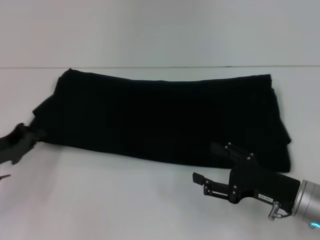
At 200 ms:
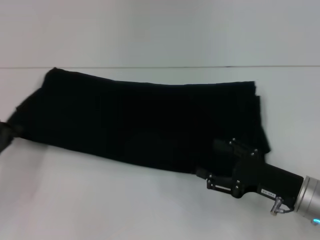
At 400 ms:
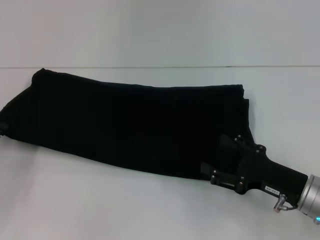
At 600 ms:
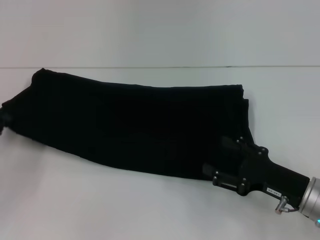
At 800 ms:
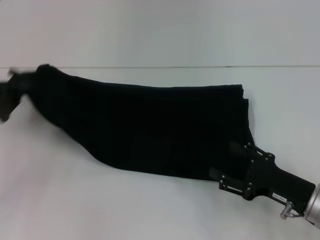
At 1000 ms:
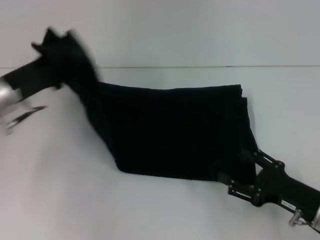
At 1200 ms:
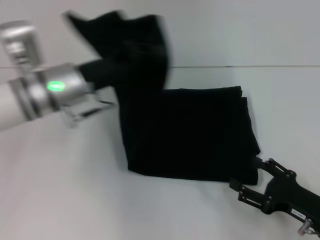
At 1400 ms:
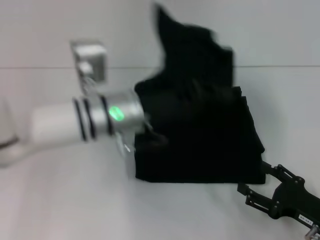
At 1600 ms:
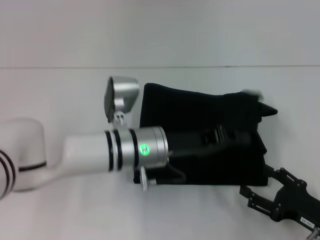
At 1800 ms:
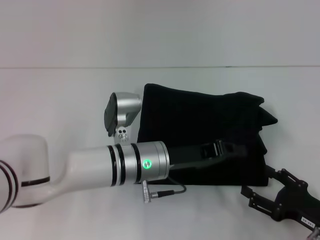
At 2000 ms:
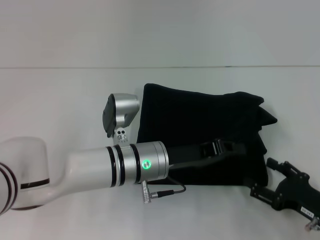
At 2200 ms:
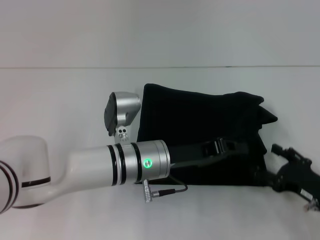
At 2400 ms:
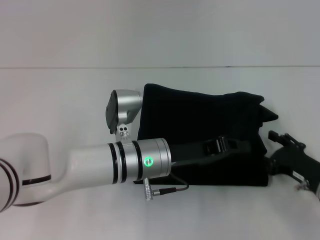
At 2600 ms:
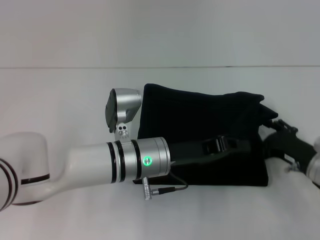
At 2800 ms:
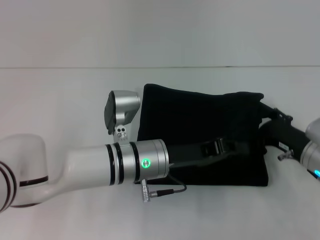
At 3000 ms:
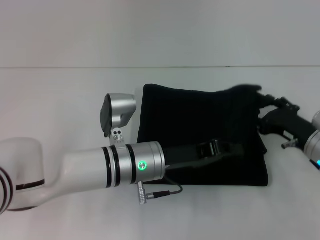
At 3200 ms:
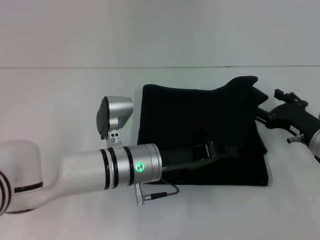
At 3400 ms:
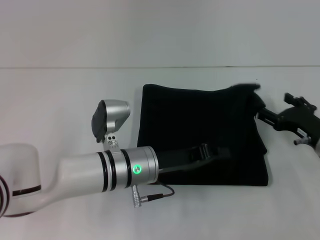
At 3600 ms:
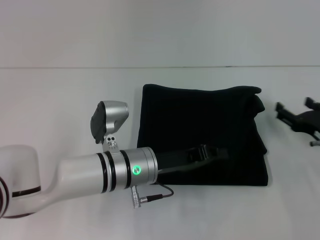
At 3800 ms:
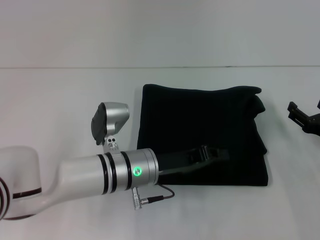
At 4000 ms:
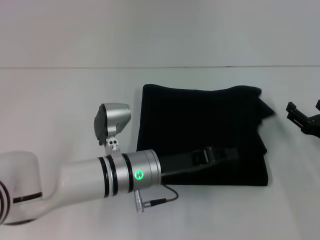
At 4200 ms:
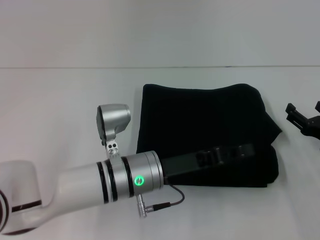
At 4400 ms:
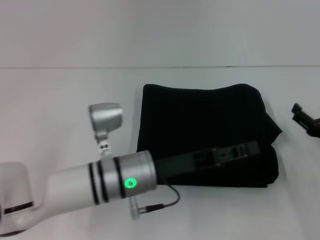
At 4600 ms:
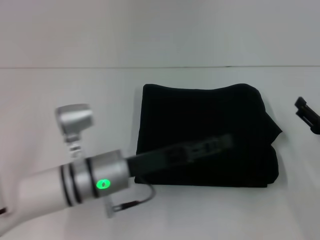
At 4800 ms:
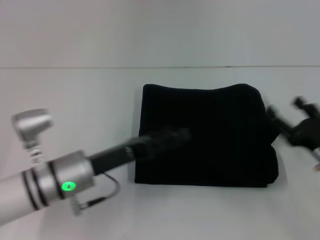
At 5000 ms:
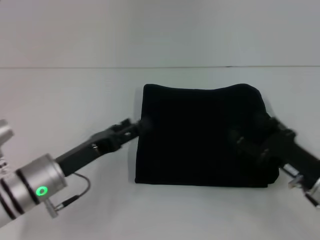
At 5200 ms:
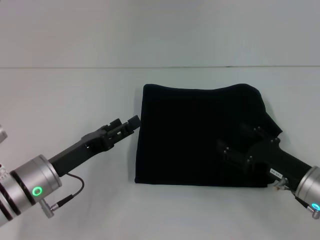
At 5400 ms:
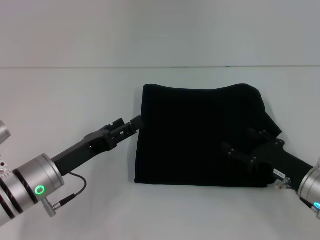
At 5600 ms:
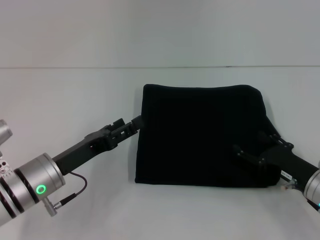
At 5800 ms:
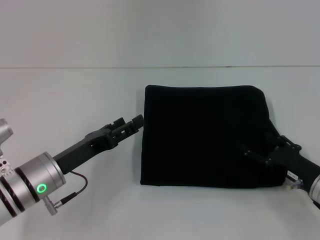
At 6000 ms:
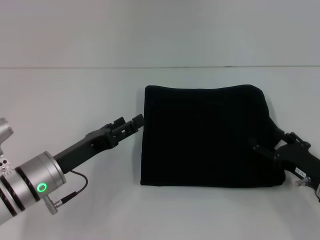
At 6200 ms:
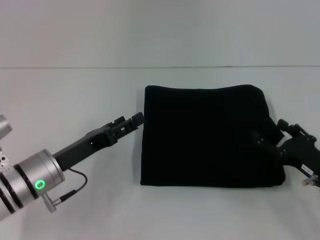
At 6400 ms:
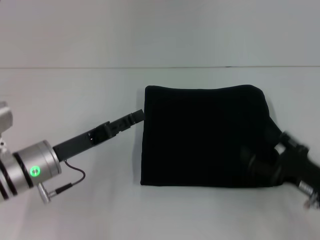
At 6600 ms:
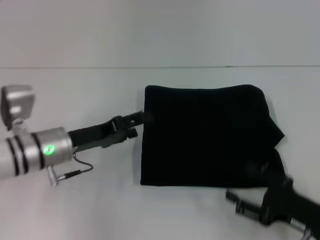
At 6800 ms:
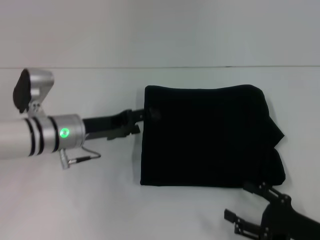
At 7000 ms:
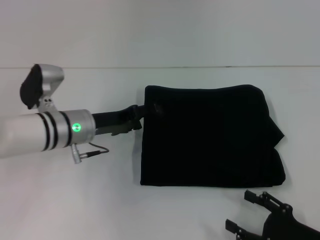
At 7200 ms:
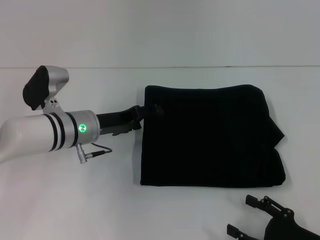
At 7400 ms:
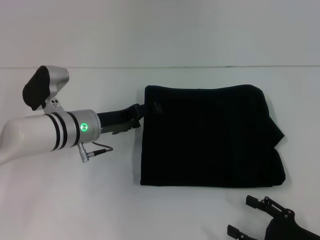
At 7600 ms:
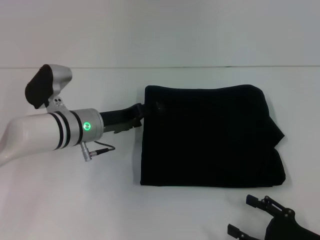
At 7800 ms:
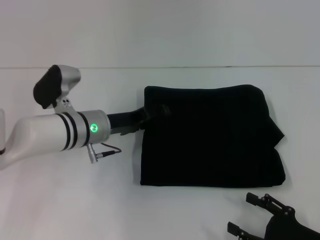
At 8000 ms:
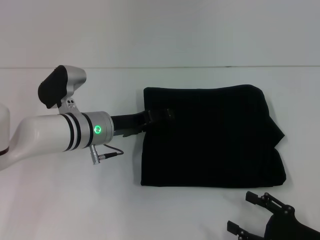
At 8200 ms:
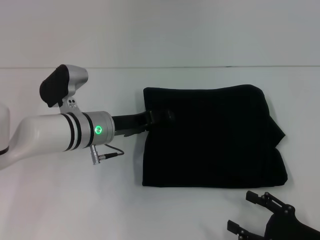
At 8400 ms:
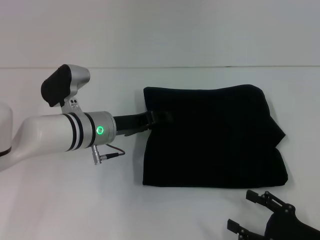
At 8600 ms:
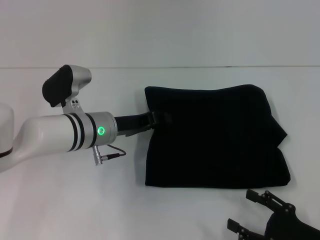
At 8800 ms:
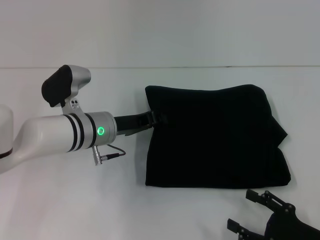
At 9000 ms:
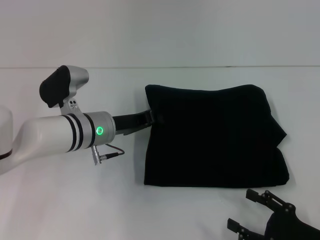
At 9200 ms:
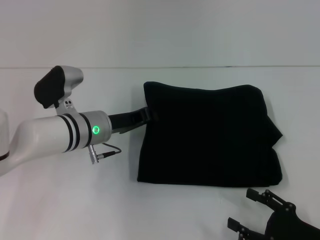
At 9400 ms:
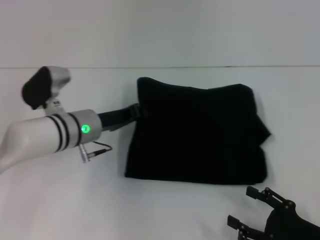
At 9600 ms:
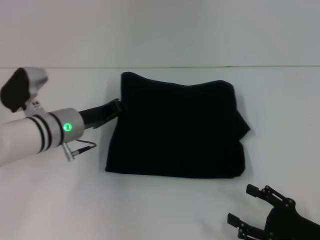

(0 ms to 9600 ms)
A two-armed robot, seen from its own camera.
Step, 0 ms - 7200 ms: Fold the clothes with your left hand.
0 ms - 1600 ms: The left gripper moves to the right, approximately 25 cm, while the right gripper moves to the right, about 5 cm.
1600 ms - 3200 ms: The right gripper heads forward, covering about 15 cm.
3200 ms - 4800 ms: The left gripper goes about 10 cm to the left, and opens up. The right gripper heads backward, covering approximately 5 cm.
4800 ms - 6400 ms: The left gripper ends up about 5 cm from where it was.
6400 ms - 8000 ms: The right gripper is displaced backward by some 5 cm; the left gripper travels forward and to the right by roughly 10 cm.
8000 ms - 9600 ms: The left gripper closes.

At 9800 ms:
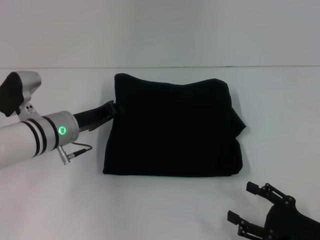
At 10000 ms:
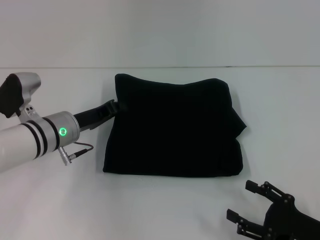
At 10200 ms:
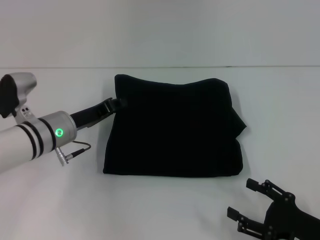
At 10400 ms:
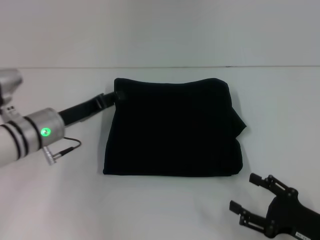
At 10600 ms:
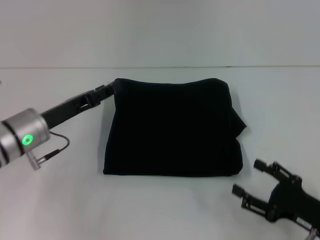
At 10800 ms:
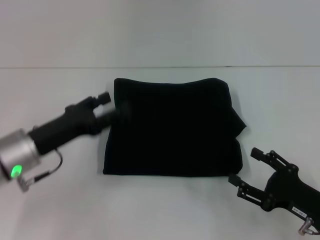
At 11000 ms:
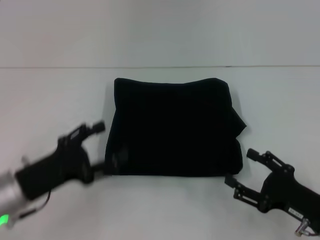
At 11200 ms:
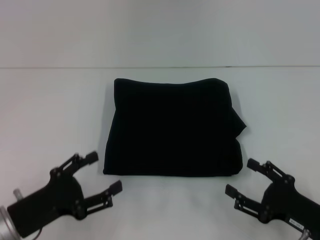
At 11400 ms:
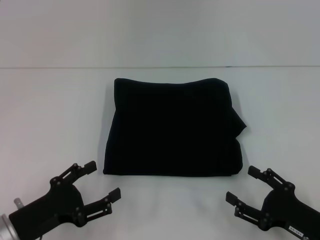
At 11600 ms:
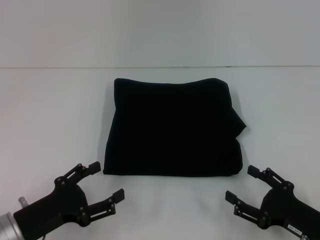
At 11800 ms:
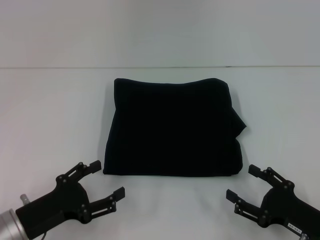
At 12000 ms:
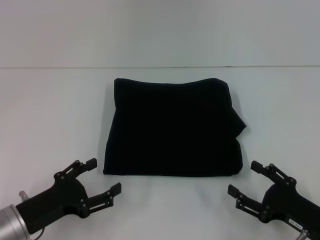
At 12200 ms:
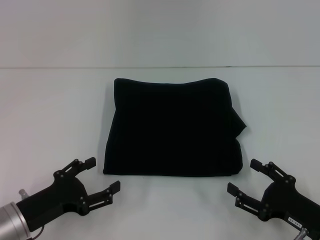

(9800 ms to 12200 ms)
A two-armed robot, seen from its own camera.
9800 ms - 11000 ms: The left gripper moves backward, some 15 cm, and opens up.
11000 ms - 12200 ms: The grippers move only a little.

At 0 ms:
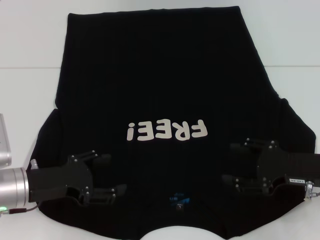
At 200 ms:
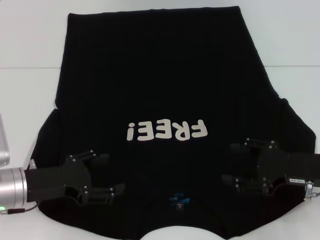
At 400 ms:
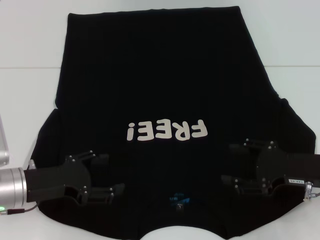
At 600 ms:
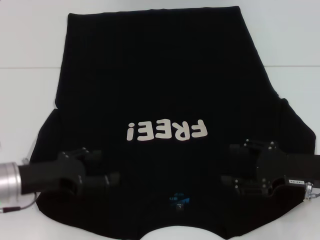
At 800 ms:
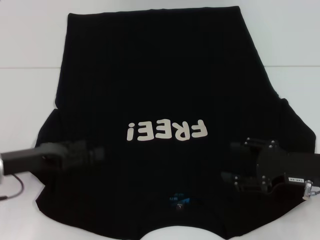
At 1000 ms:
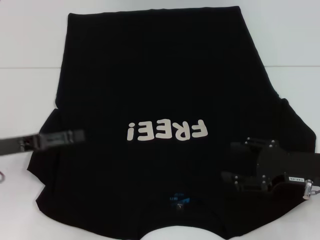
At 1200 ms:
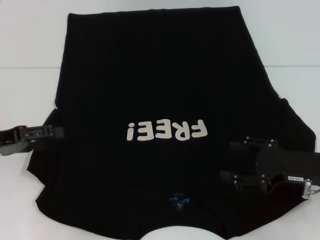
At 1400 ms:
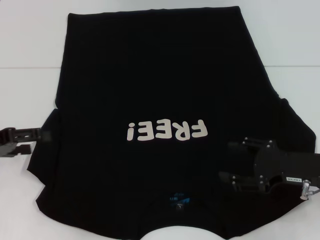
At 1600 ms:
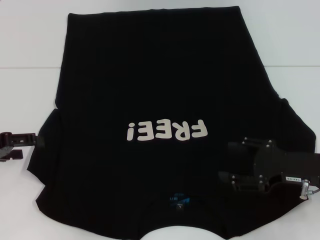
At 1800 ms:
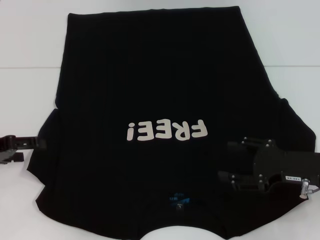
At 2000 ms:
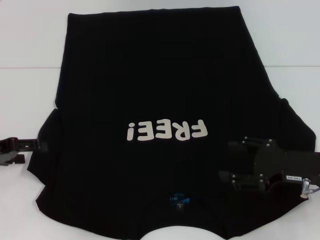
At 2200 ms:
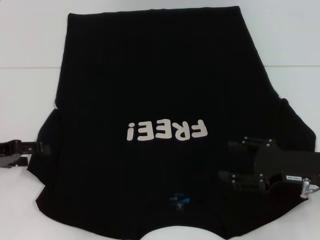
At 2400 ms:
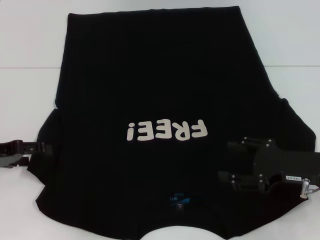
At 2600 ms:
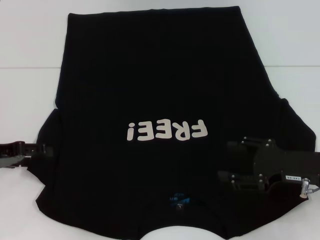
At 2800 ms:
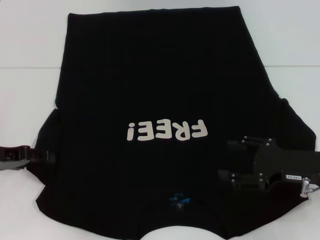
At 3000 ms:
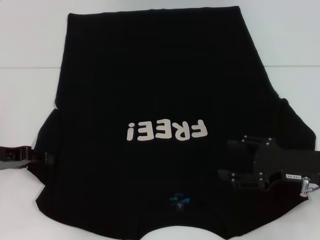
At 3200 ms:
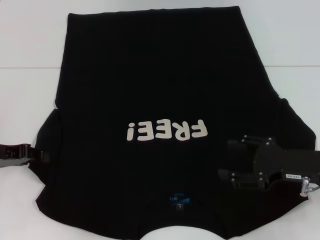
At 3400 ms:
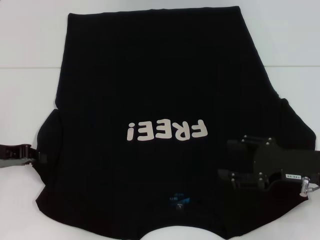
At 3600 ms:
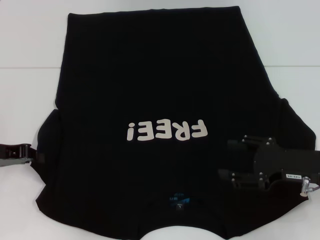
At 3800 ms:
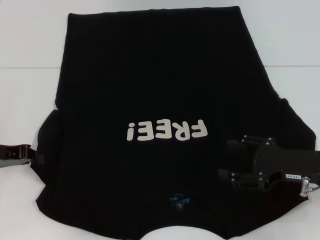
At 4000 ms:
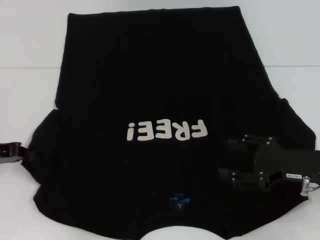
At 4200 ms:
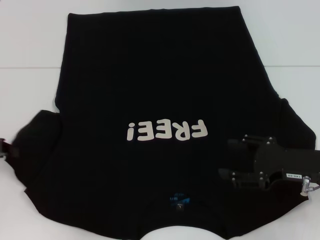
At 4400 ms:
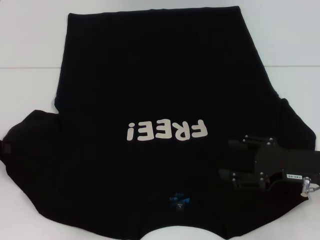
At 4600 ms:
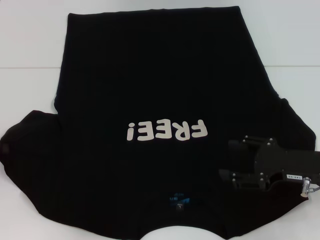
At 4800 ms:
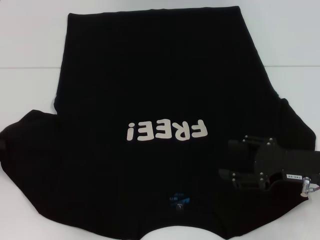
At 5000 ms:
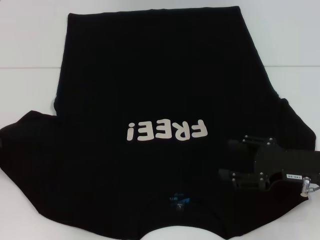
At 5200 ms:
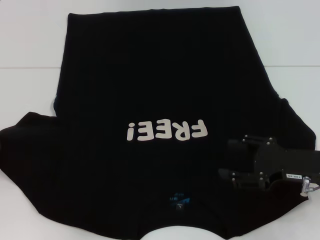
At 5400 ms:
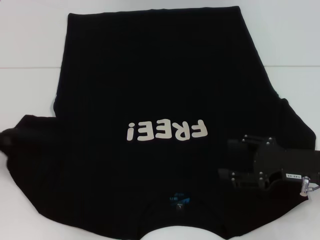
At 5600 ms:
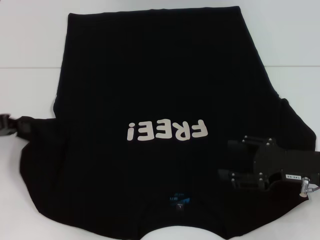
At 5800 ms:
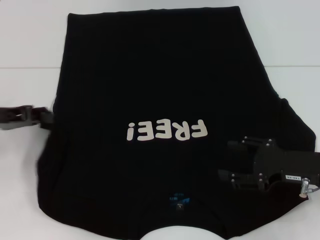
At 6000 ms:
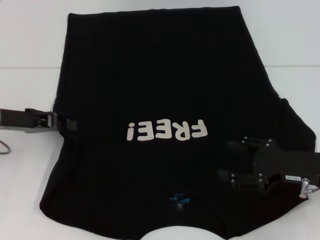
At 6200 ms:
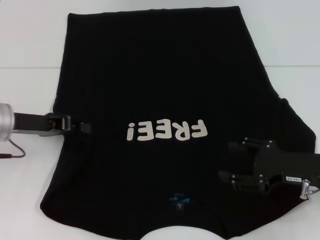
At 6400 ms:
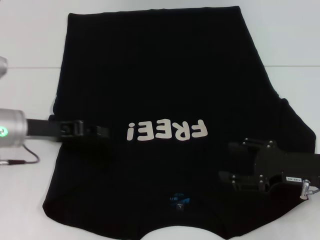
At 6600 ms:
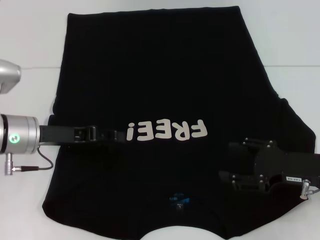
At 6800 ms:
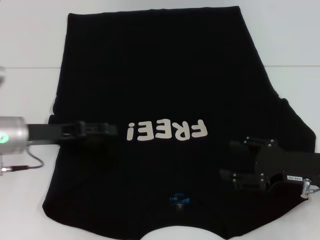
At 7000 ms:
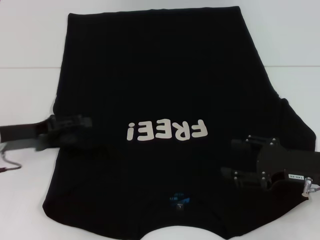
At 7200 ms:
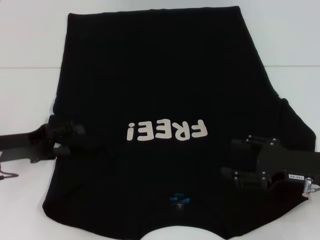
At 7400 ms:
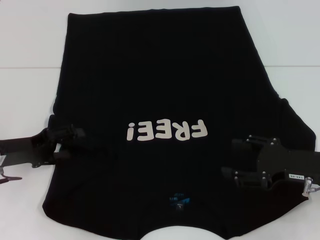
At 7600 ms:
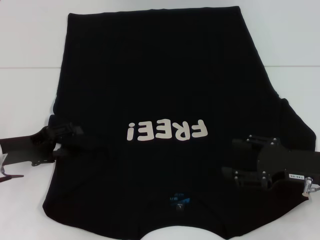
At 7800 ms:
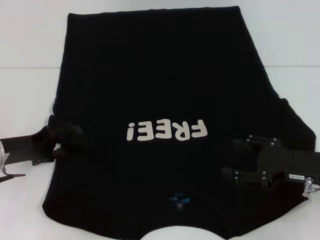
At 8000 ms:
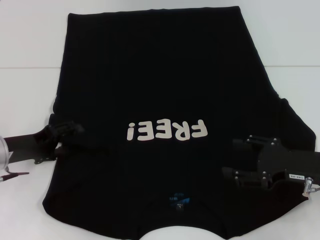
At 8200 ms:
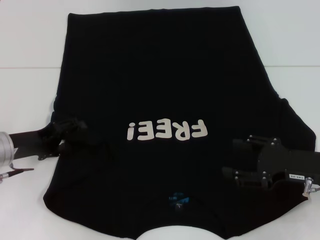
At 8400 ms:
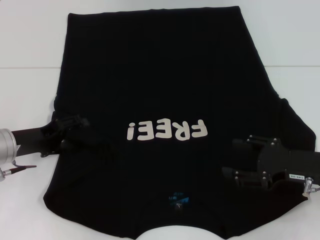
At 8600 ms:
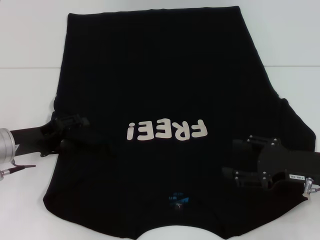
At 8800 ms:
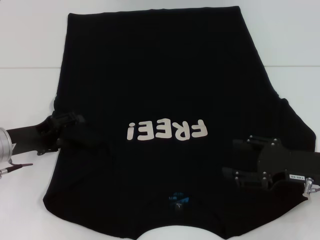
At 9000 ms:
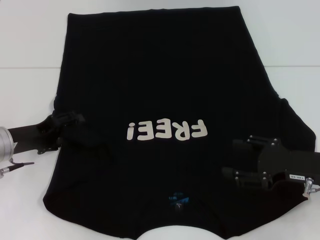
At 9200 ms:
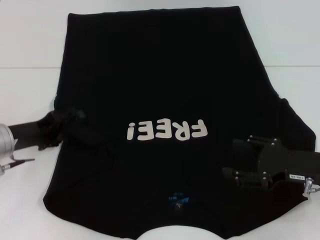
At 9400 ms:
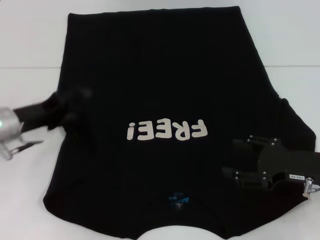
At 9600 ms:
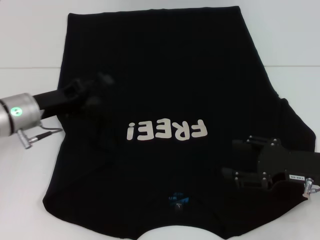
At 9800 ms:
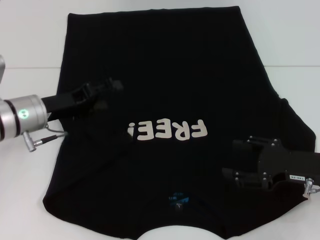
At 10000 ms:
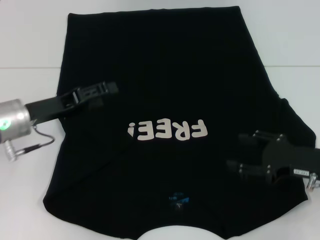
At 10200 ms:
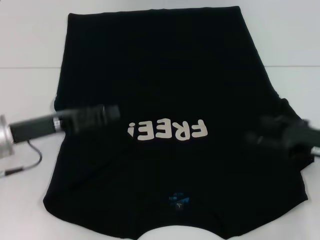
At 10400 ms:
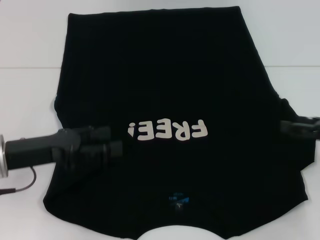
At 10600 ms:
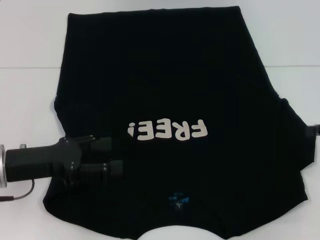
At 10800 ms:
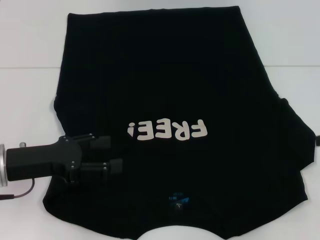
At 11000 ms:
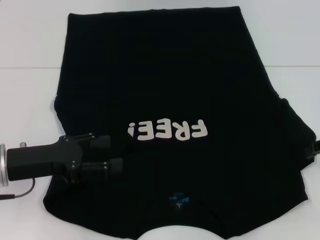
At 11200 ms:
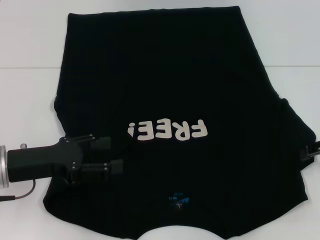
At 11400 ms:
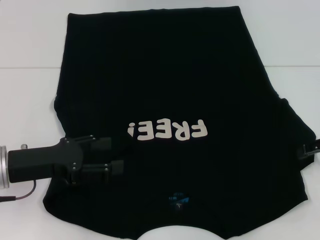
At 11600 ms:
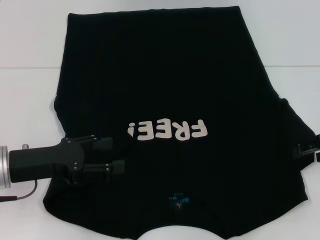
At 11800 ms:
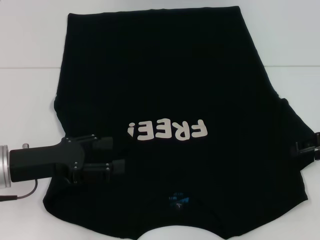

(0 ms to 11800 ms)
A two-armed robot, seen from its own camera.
Step, 0 ms - 6600 ms: Fold the bottom left sleeve with your left hand.
0 ms - 1400 ms: The left gripper goes roughly 10 cm to the left and upward.
1400 ms - 3000 ms: There are only small adjustments of the grippers.
3000 ms - 4400 ms: The left gripper closes.
4400 ms - 6000 ms: The left gripper shifts some 10 cm to the right.
6000 ms - 7400 ms: The left gripper moves downward, some 5 cm, and opens.
7400 ms - 8800 ms: The grippers stay close to where they were, moving slightly.
8800 ms - 10400 ms: The left gripper changes place by roughly 5 cm, while the right gripper heads to the right, covering roughly 5 cm.
